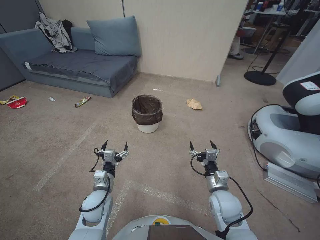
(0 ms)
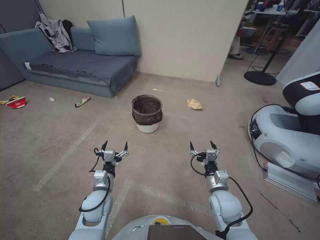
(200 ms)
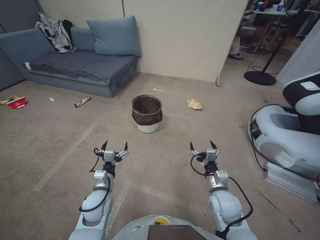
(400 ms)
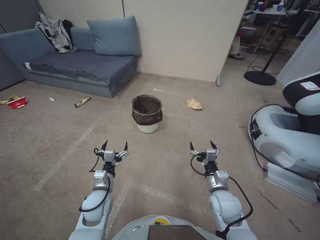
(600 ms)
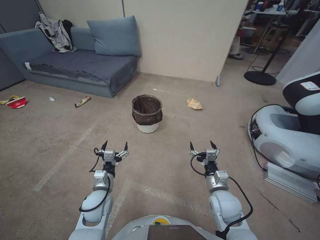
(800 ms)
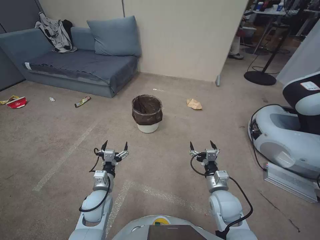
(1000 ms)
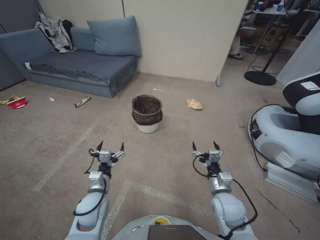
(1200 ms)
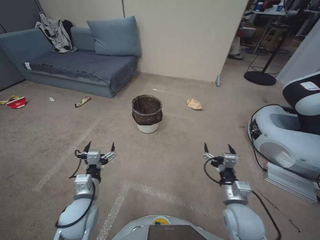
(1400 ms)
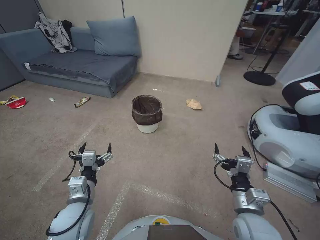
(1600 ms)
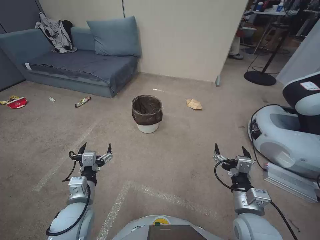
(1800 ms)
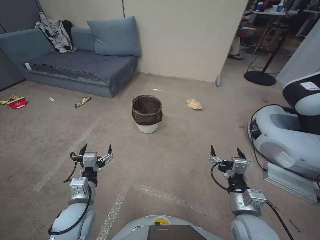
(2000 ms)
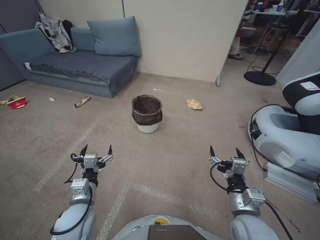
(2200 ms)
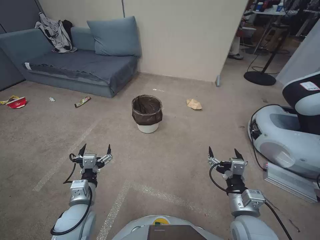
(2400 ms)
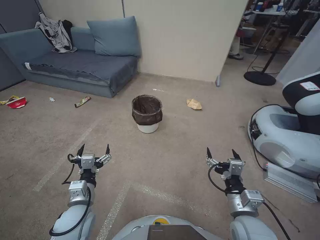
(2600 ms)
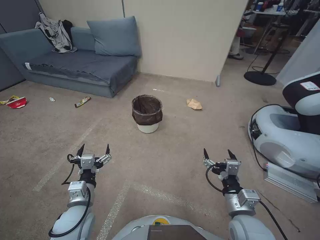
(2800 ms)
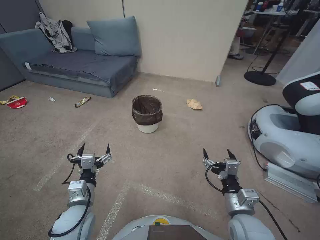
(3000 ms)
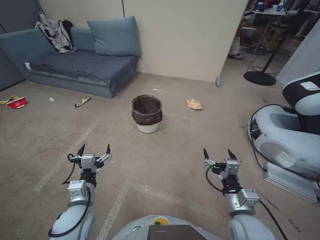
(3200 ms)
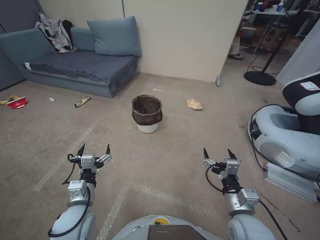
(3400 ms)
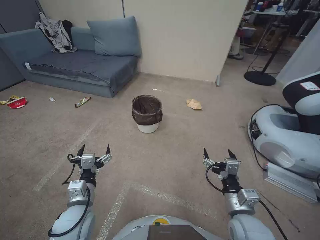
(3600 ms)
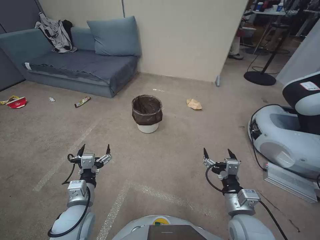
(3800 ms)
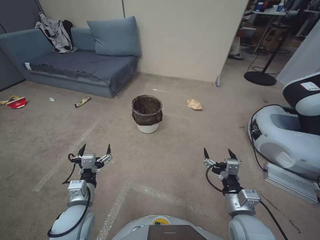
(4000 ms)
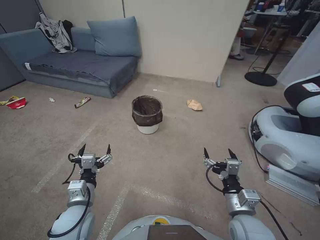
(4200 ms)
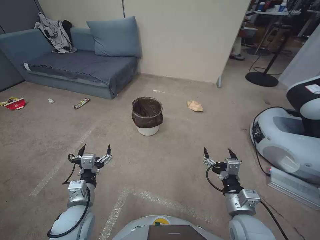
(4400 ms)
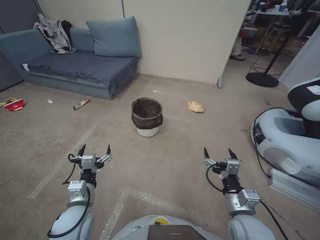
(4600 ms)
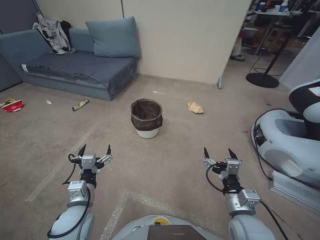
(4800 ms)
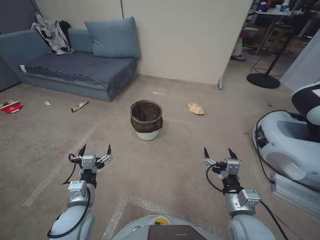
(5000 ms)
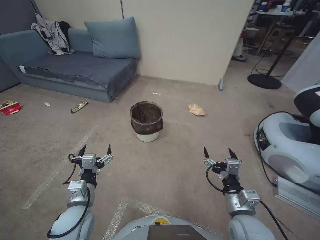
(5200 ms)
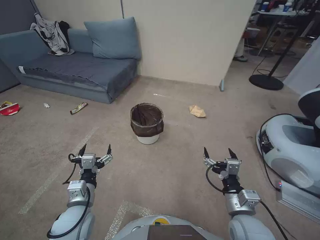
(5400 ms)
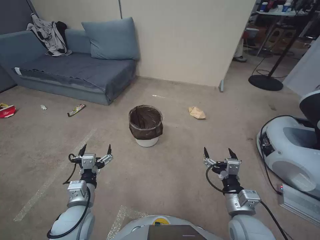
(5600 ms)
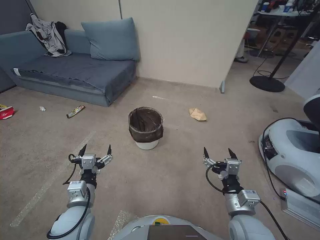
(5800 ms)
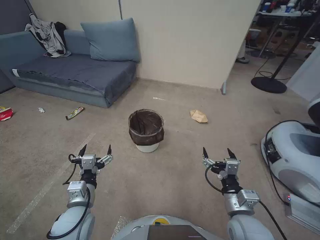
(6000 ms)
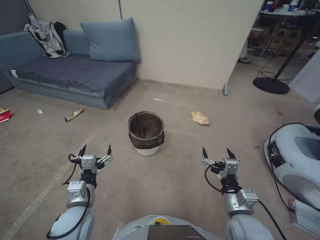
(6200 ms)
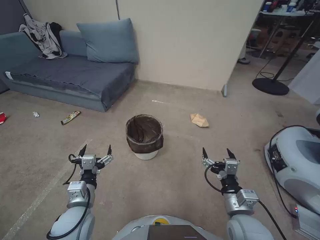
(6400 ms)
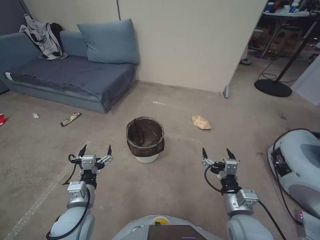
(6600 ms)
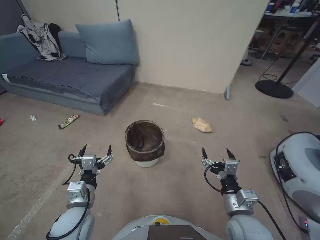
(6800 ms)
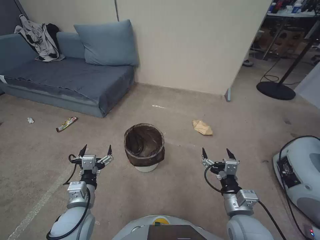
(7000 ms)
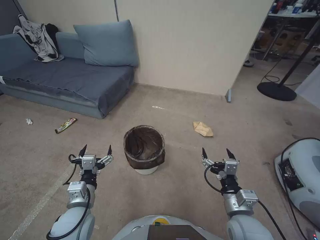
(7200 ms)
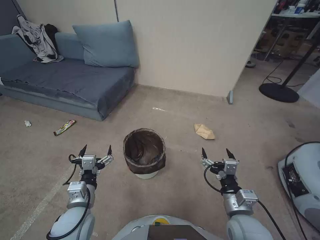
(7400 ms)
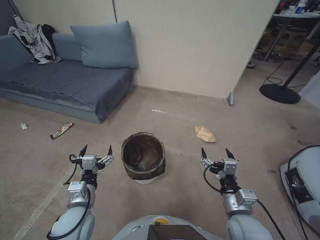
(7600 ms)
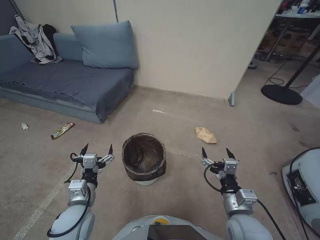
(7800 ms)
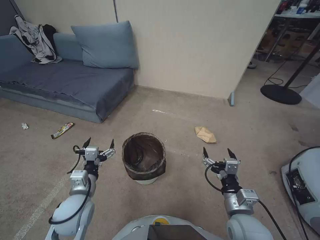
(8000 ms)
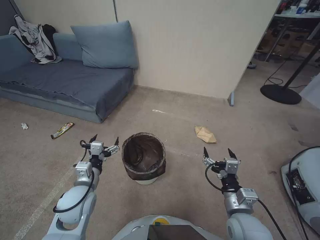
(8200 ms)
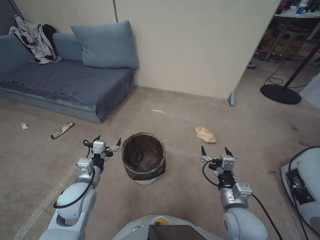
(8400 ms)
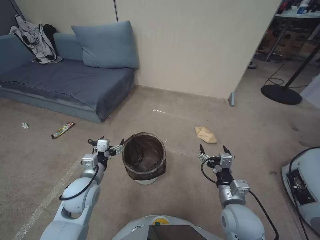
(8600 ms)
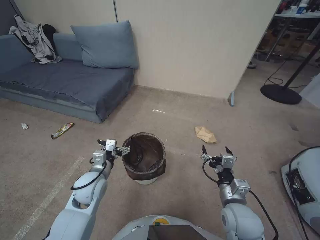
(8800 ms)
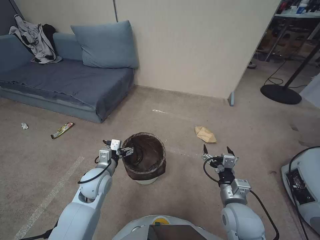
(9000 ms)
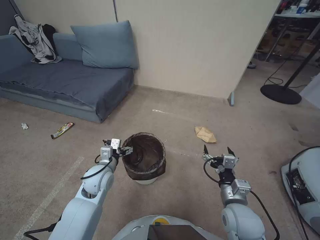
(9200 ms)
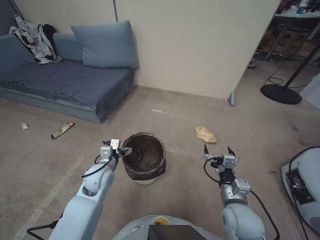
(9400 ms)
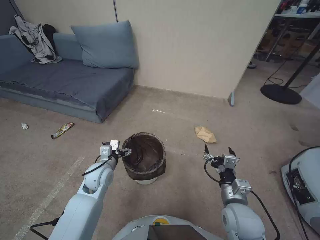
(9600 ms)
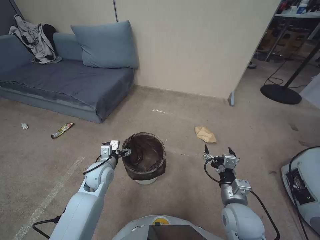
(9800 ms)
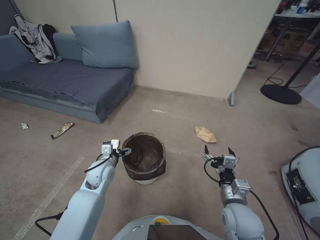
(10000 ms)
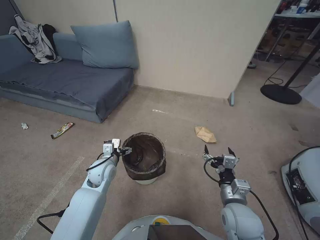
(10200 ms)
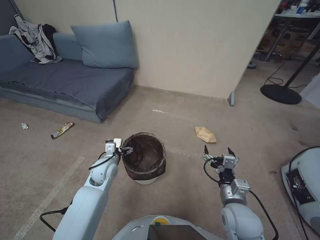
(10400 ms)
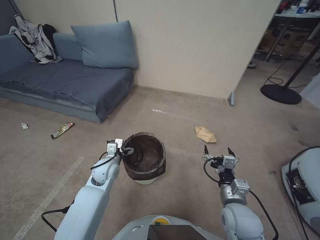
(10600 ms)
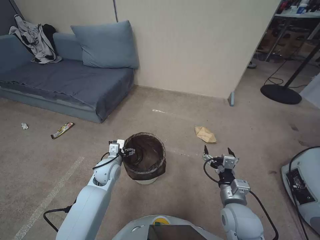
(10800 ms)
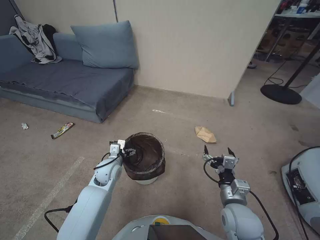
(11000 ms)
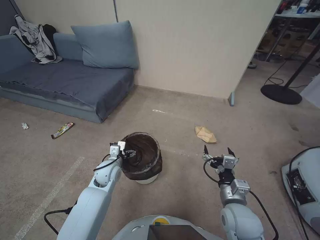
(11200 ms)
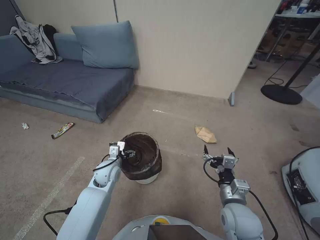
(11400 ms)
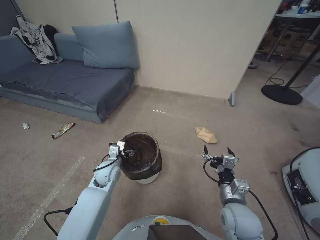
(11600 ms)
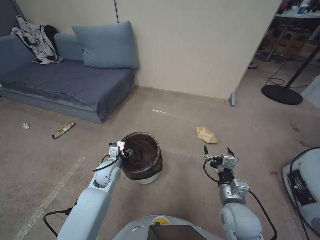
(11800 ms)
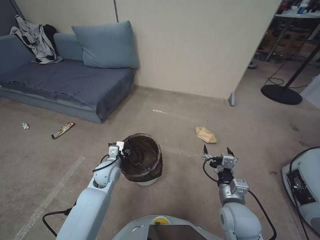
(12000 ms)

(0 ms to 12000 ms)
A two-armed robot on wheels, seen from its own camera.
Task of the whole recording: Pick up the trash bin, then pick up the garbage from the floor and place it into the trash bin.
1600 ms - 3000 ms: The grippers move only a little.
3000 ms - 6000 ms: Both grippers stay put.
7600 ms - 9000 ms: The left gripper heads forward, covering roughly 10 cm.
9000 ms - 10400 ms: The left gripper travels forward by roughly 5 cm.
10400 ms - 12000 ms: The left gripper closes.

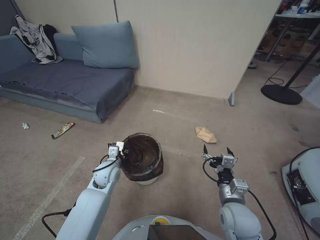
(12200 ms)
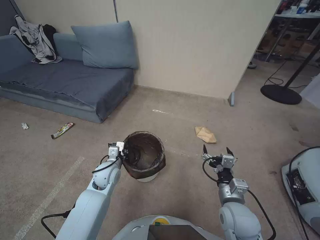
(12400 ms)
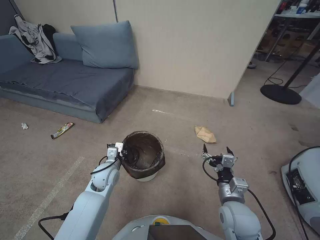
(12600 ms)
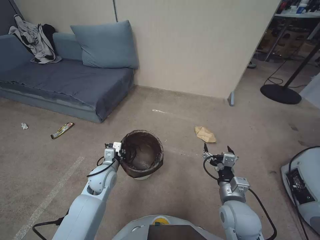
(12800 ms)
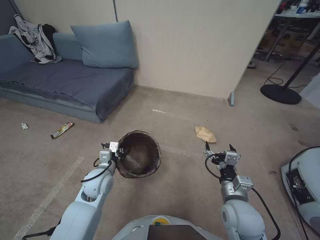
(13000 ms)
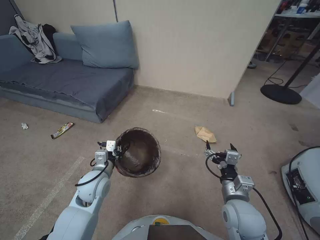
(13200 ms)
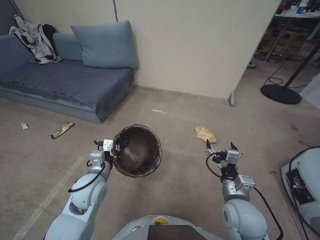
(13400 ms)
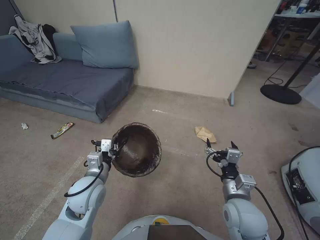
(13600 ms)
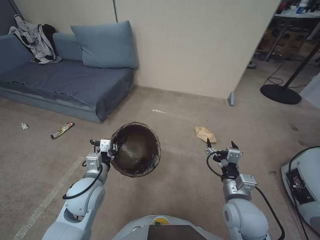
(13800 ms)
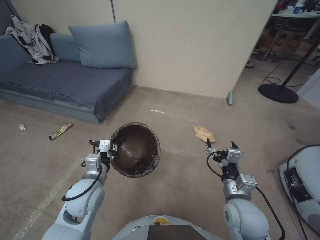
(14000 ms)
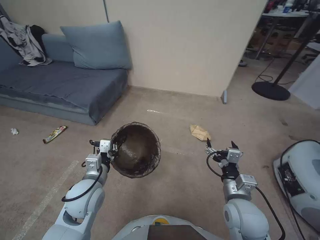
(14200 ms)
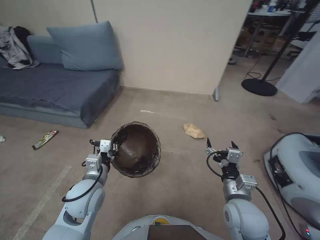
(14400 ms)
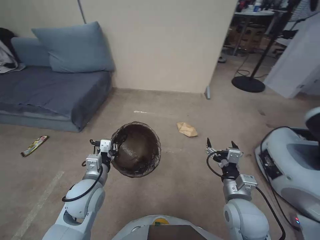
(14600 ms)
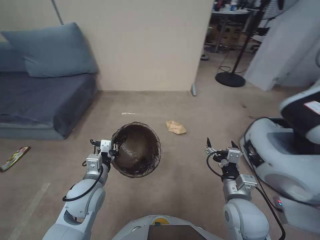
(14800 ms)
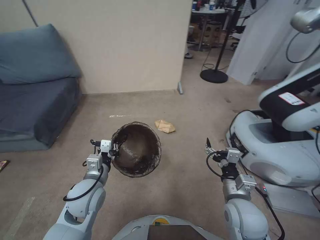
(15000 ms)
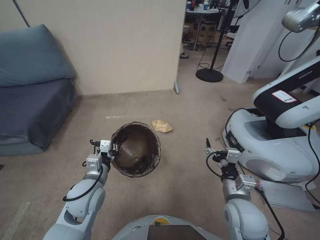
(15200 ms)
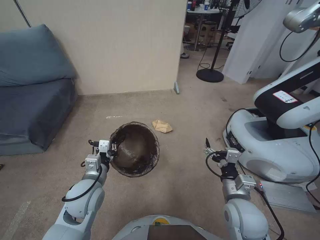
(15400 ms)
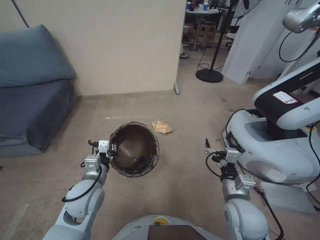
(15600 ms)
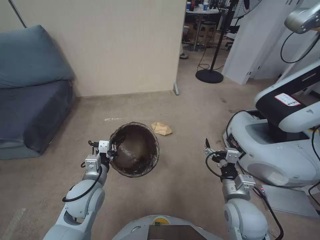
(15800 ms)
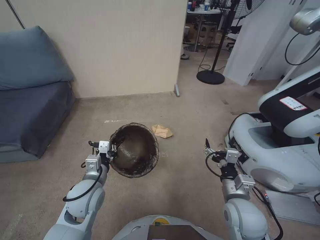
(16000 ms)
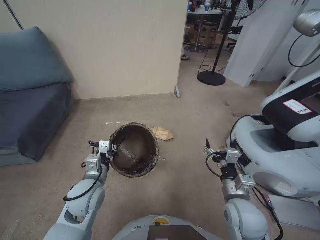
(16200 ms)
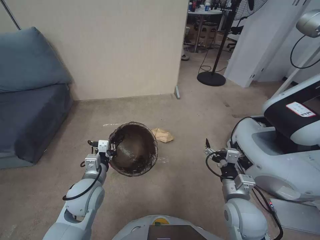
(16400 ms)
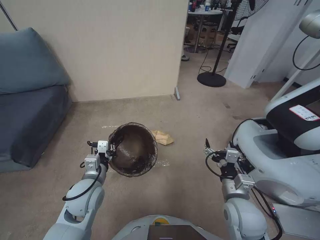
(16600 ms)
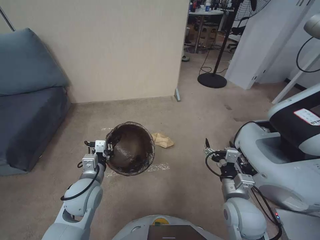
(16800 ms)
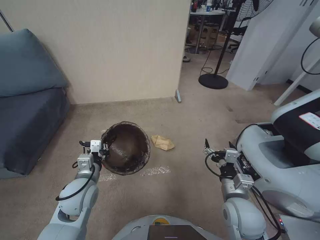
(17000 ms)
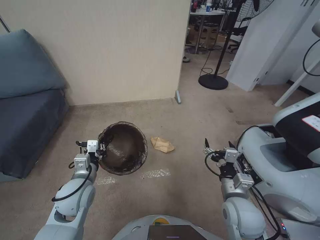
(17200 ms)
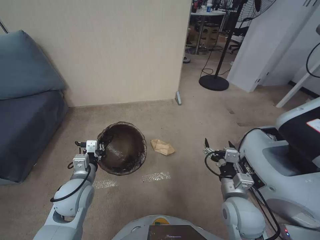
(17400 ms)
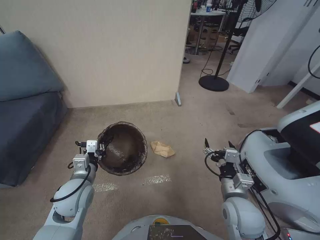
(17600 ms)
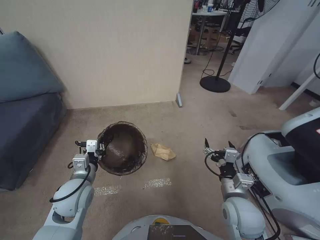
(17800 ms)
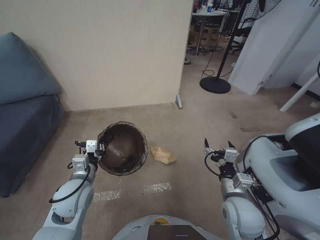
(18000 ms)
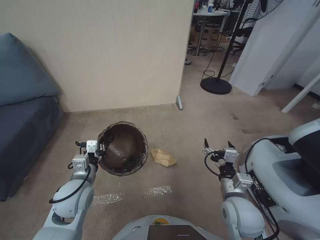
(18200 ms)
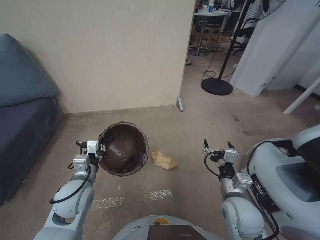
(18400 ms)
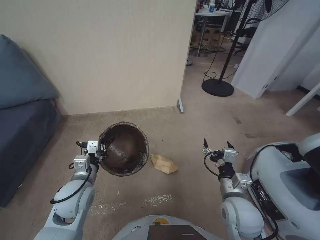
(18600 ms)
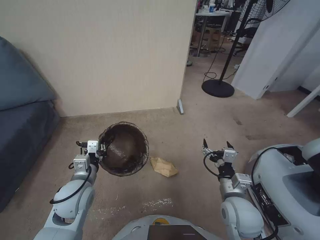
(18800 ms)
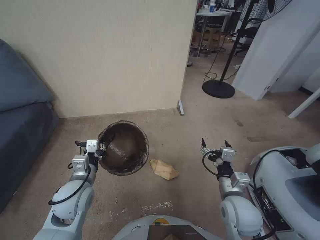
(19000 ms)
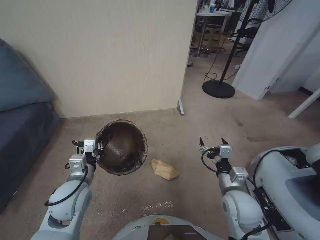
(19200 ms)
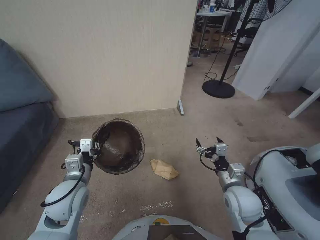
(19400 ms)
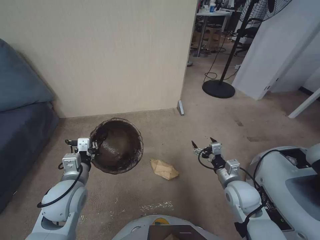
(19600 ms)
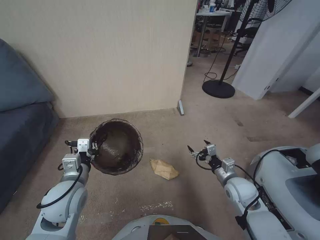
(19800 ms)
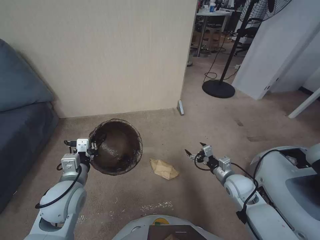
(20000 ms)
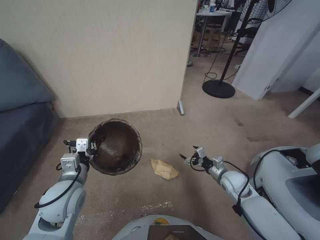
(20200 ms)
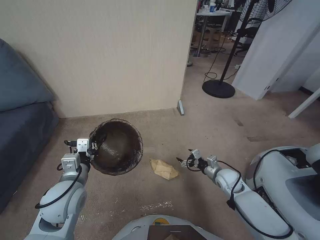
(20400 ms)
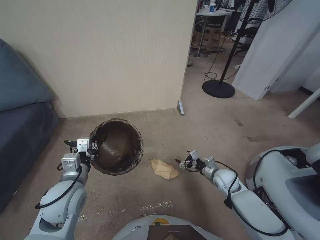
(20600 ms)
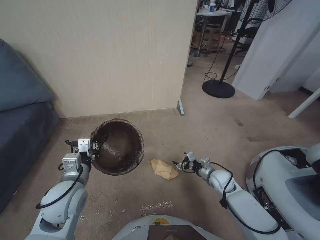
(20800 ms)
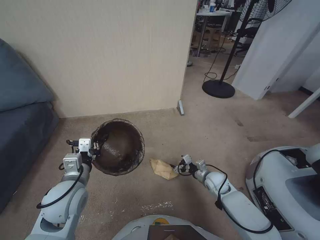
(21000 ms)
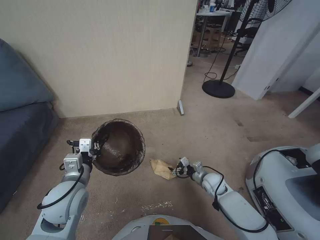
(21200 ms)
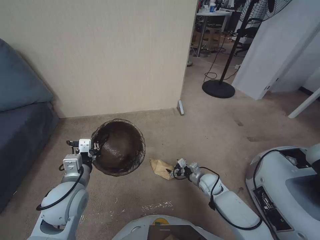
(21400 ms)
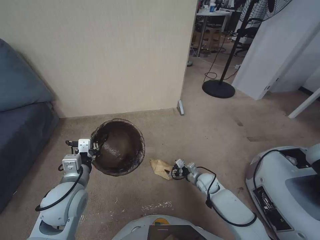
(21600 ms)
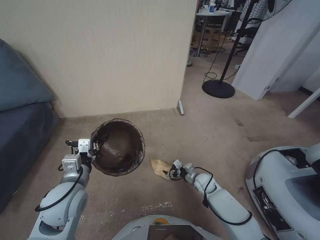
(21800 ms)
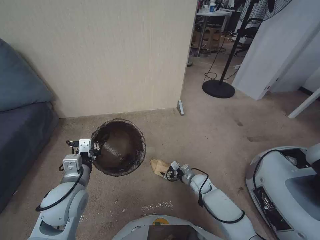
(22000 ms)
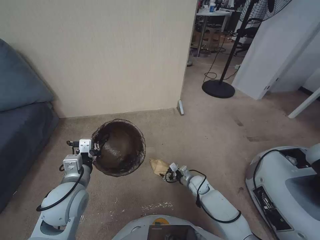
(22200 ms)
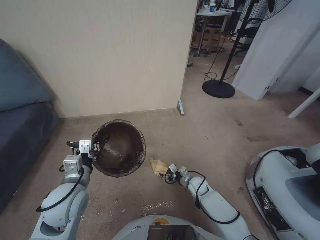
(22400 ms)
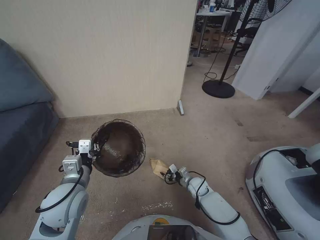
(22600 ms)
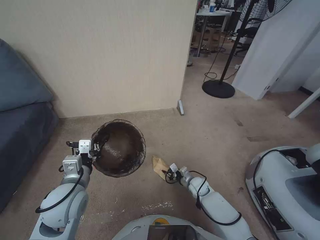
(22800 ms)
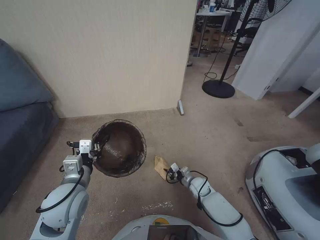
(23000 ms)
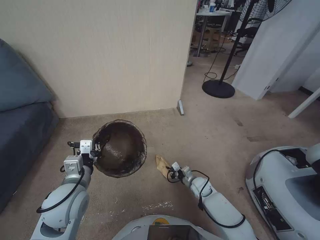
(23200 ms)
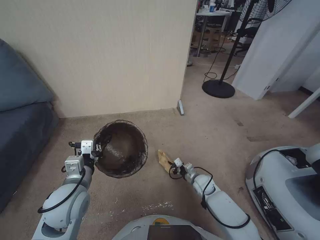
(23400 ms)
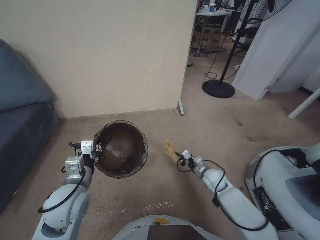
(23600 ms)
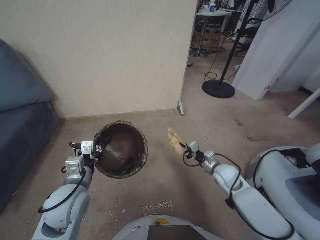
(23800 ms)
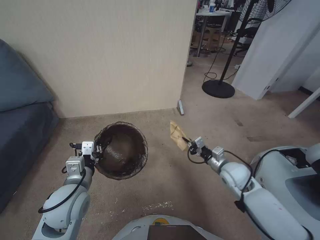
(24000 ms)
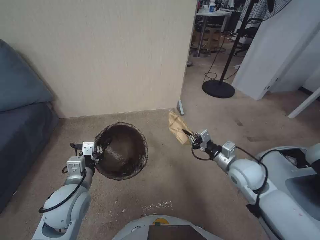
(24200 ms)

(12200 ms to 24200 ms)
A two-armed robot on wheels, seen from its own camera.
Task of the whole recording: Pick up the trash bin, then pick up the garbage from the floor and place it into the trash bin.
12200 ms - 13800 ms: The left gripper is displaced backward and upward by about 15 cm.
18200 ms - 19800 ms: The right gripper moves forward and to the right, roughly 10 cm.
19800 ms - 21200 ms: The right gripper shifts some 15 cm downward and forward.
21200 ms - 22600 ms: The right gripper travels downward and to the left by some 10 cm.
22600 ms - 24200 ms: The right gripper goes approximately 25 cm upward, and closes up.
